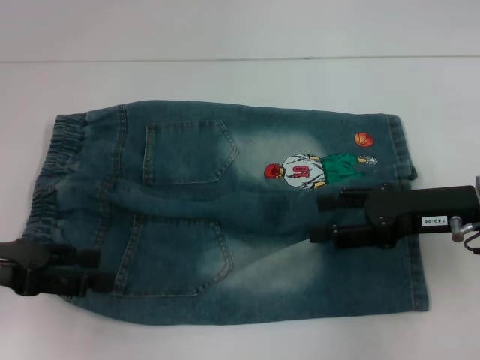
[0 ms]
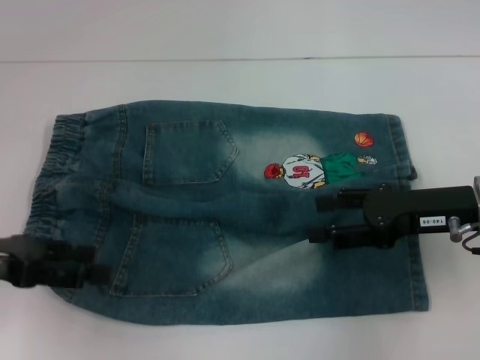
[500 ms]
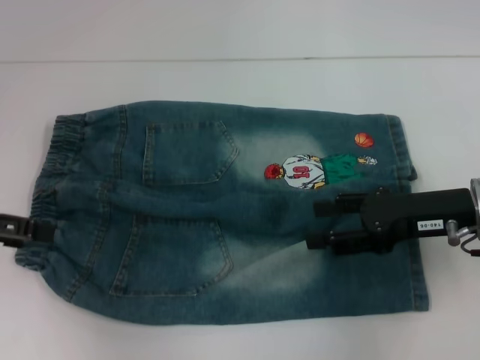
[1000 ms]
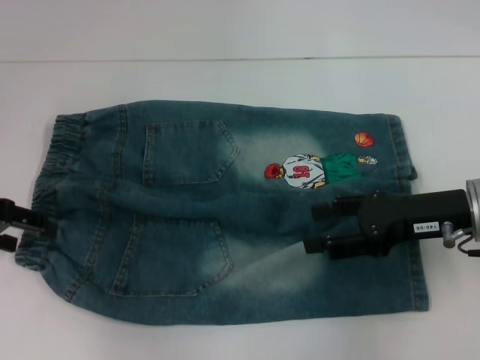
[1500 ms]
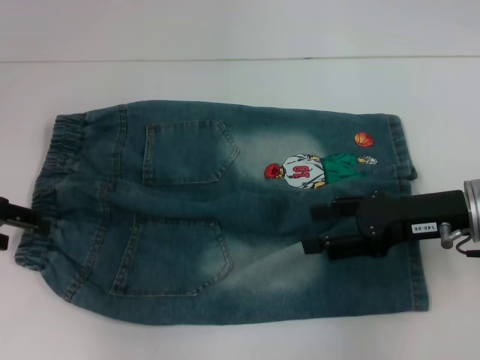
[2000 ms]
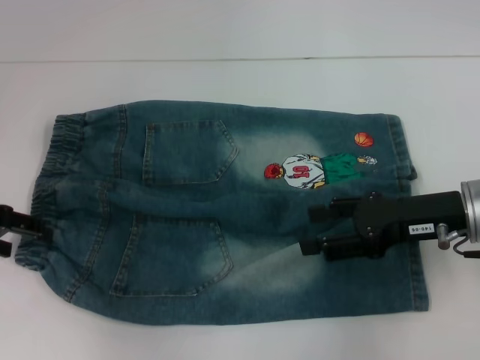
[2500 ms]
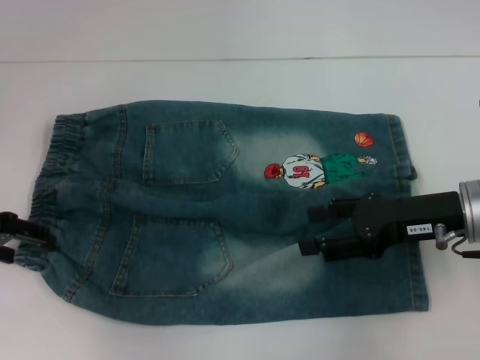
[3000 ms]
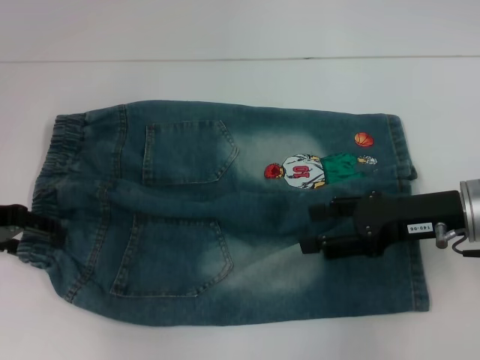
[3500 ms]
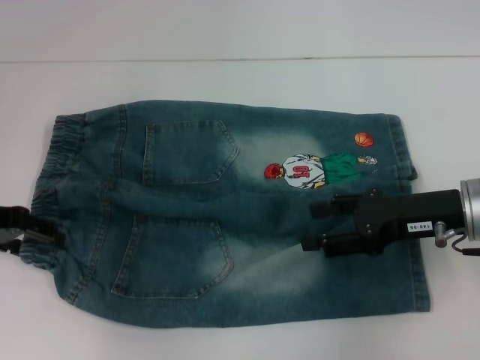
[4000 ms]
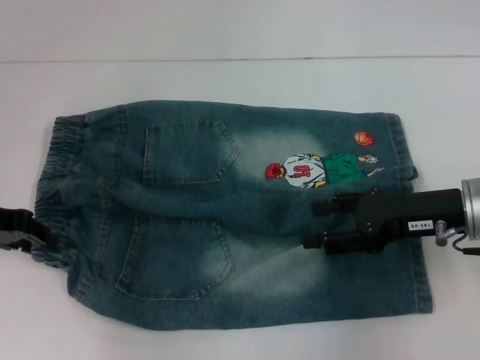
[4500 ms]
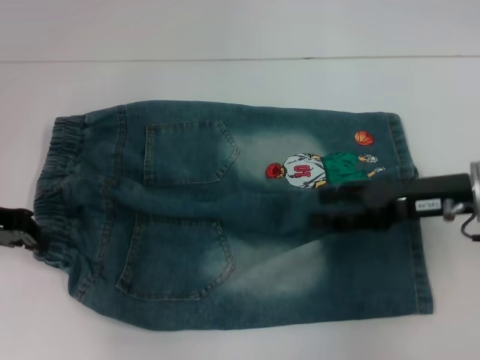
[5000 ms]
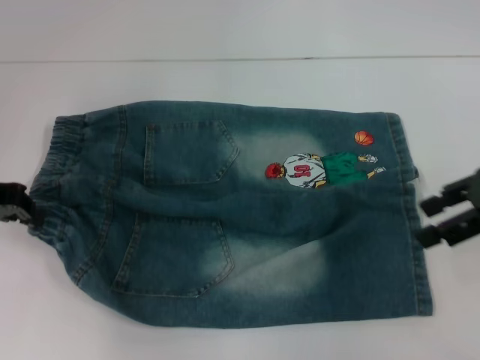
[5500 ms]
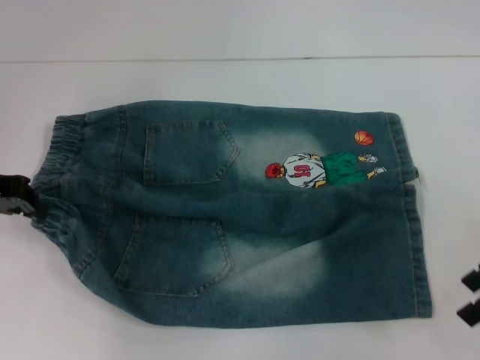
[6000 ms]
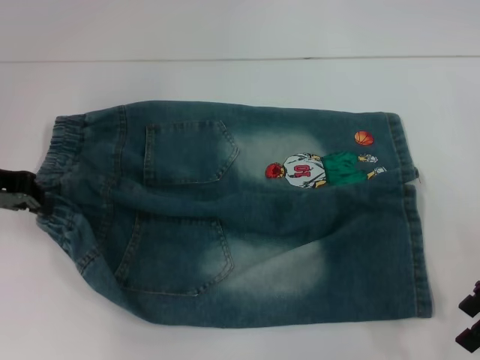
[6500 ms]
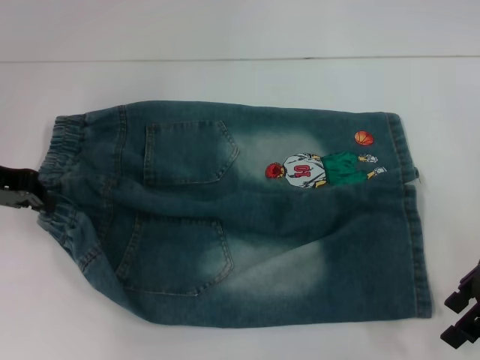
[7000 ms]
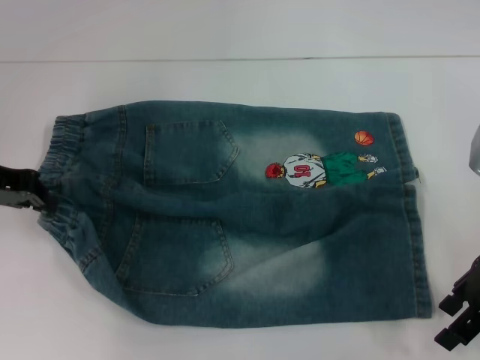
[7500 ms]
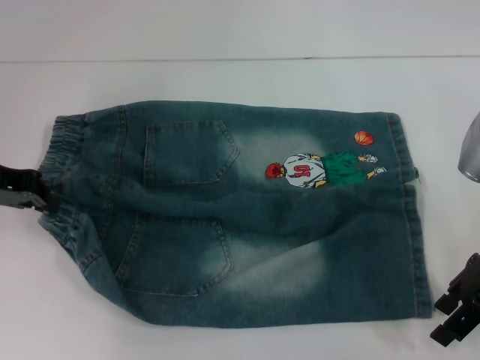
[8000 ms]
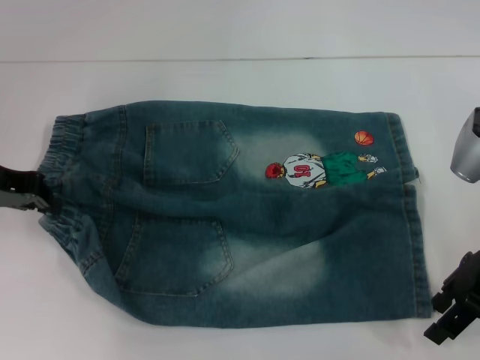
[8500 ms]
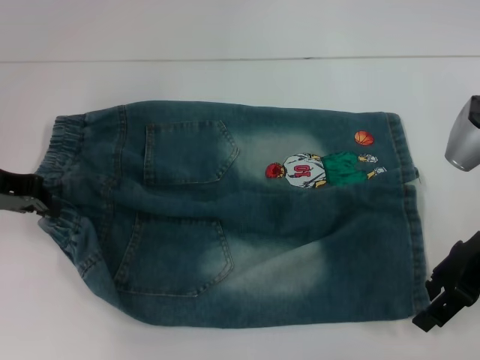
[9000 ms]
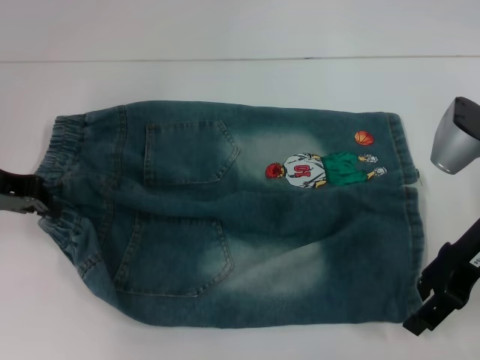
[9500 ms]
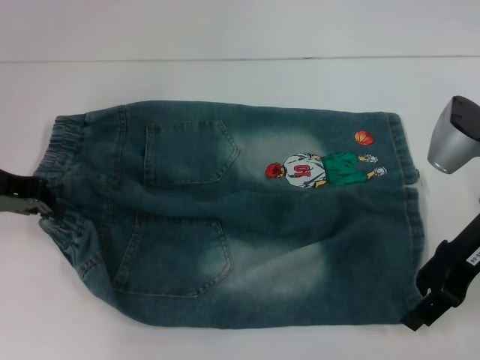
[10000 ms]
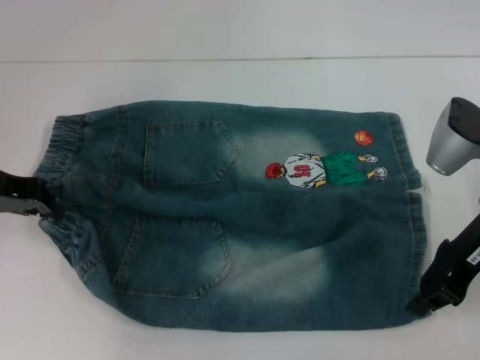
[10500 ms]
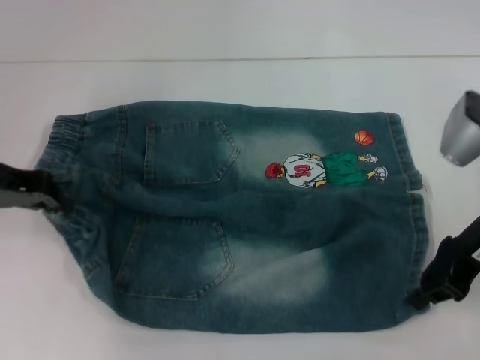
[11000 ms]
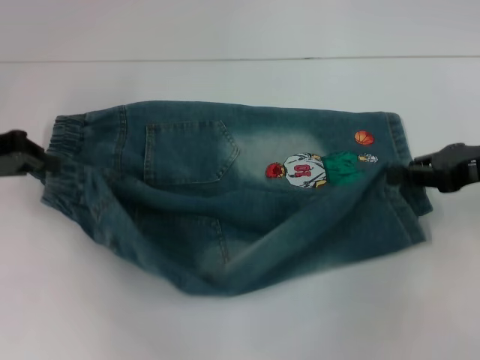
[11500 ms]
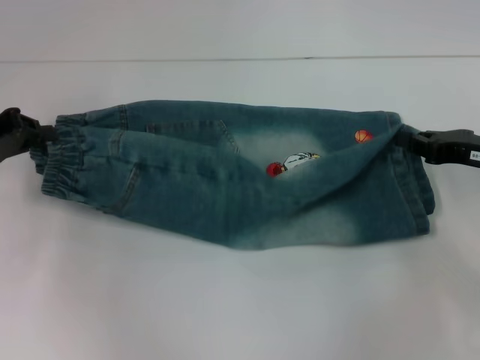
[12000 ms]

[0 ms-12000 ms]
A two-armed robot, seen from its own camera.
Step, 0 ms to 4500 ms: Hold the lower left waistband with your left hand.
Step, 5000 ms to 10500 ms: Grab the lower right pant leg with your right hand.
0 ms to 2000 ms: The left gripper is displaced forward by roughly 10 cm.
2000 ms to 4000 ms: The grippers stay close to where they were, moving slightly.
4000 ms to 6000 ms: The left gripper closes. Meanwhile the right gripper moves to the right and upward, about 10 cm.
6000 ms to 8000 ms: The right gripper ends up roughly 5 cm from where it was.
8000 ms to 10000 ms: There are only small adjustments of the grippers.
10000 ms to 12000 ms: The right gripper travels to the right by approximately 5 cm, and closes up.

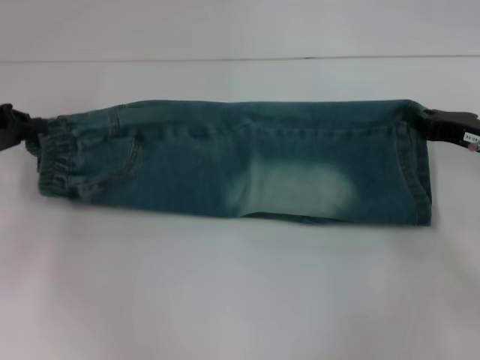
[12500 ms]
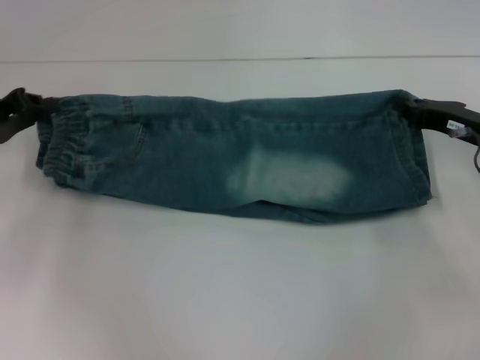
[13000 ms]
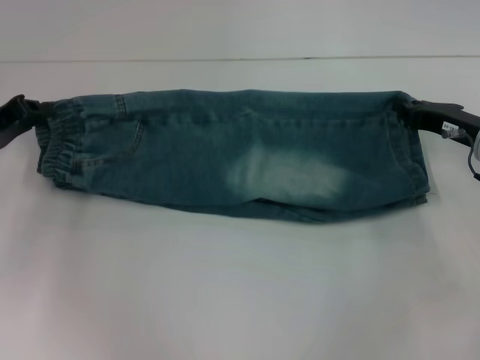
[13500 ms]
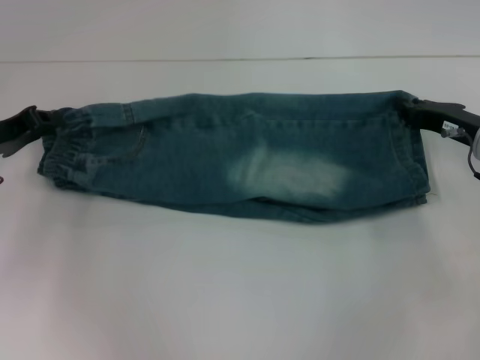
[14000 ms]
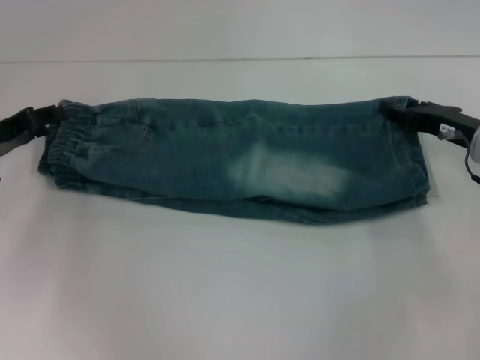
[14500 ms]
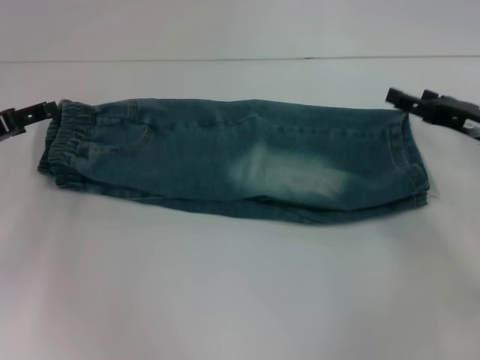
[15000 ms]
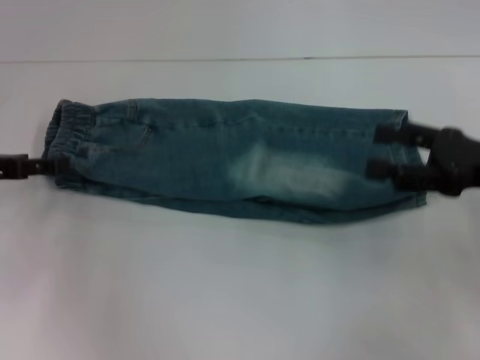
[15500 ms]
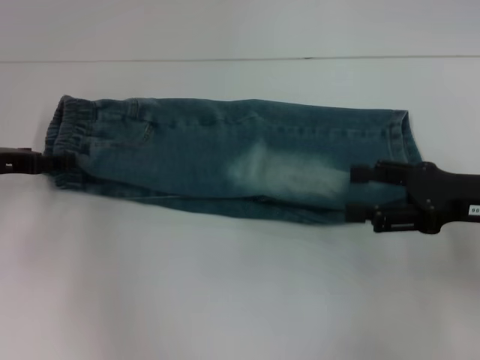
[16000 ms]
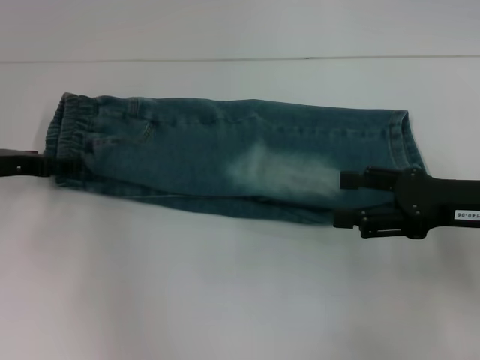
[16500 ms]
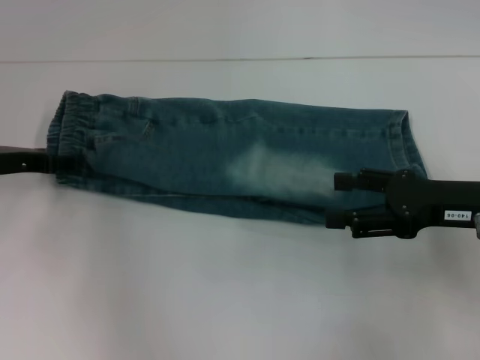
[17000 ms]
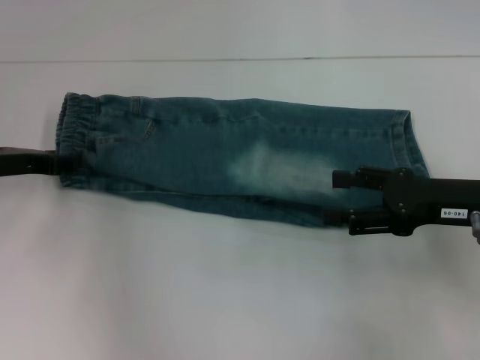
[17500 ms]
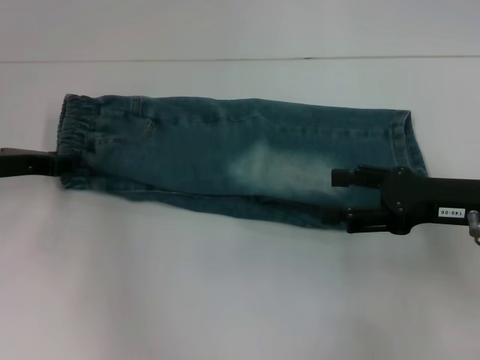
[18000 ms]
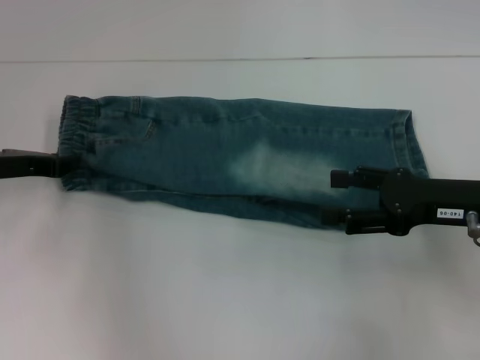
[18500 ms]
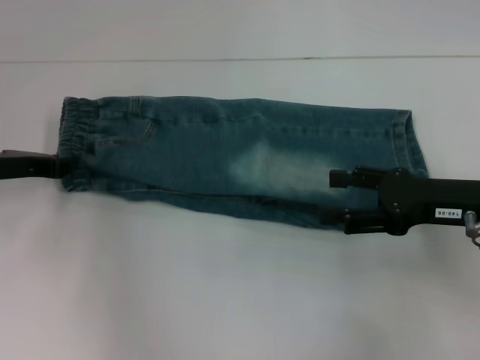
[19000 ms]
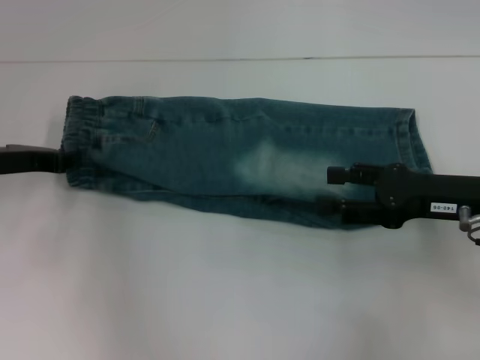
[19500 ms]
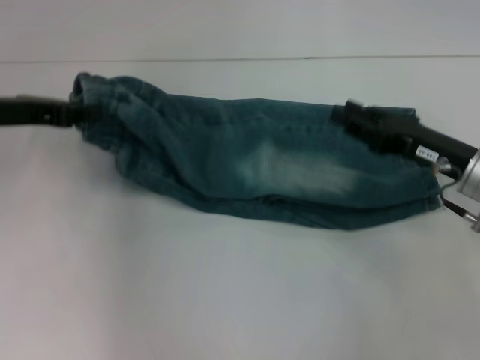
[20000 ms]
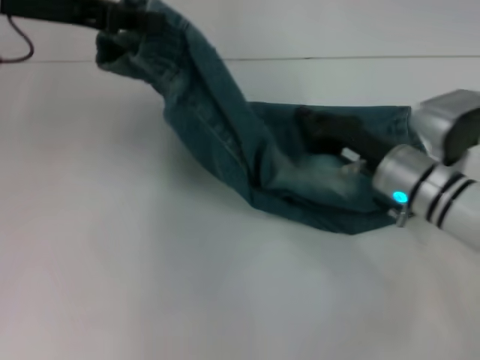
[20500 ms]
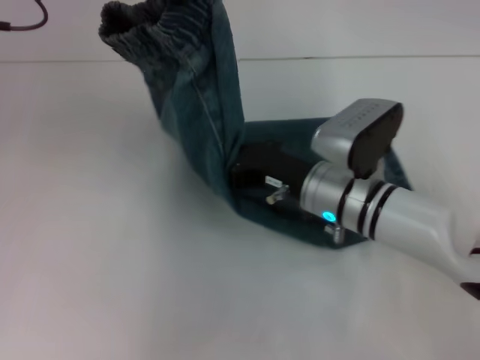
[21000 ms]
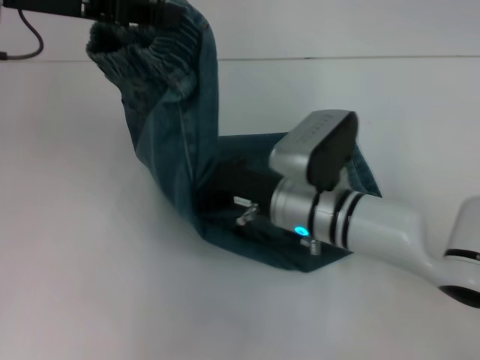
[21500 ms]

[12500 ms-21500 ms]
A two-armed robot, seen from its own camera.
Step, 15000 ms to 19500 ms: Hold the waistband with your left hand.
12500 ms to 14500 ms: The right gripper opens its fingers.
14500 ms to 17000 ms: The left gripper opens its fingers. The right gripper shifts about 10 cm backward, and opens up.
17000 ms to 19500 ms: The left gripper closes its fingers.
19500 ms to 21500 ms: The left gripper heads upward and to the right, covering some 20 cm. The right gripper moves to the left, some 20 cm, and closes up.

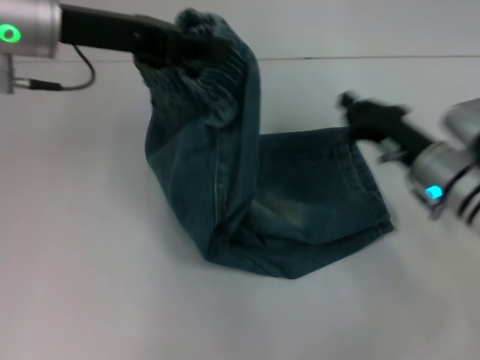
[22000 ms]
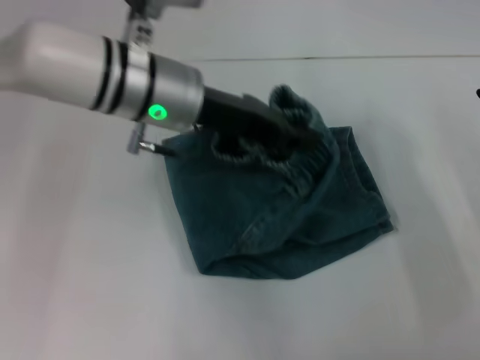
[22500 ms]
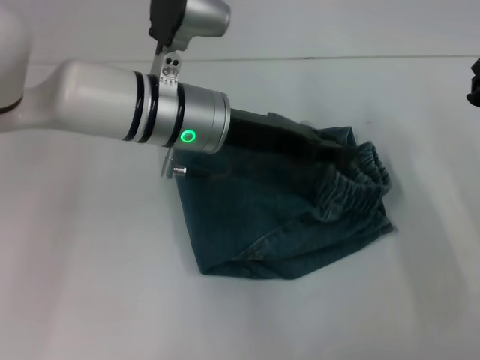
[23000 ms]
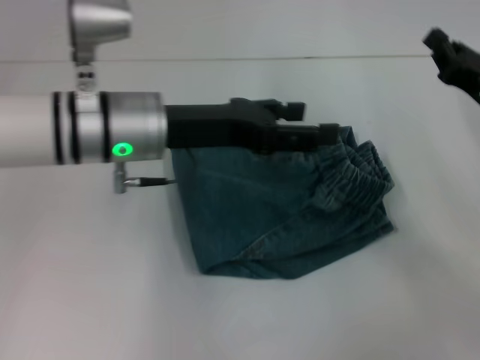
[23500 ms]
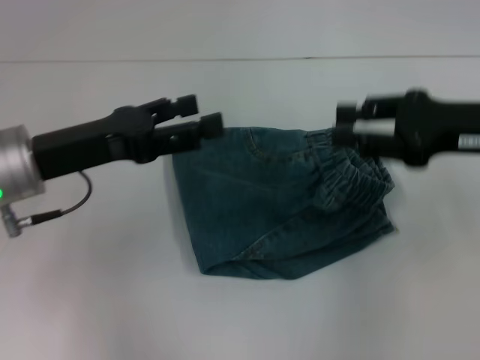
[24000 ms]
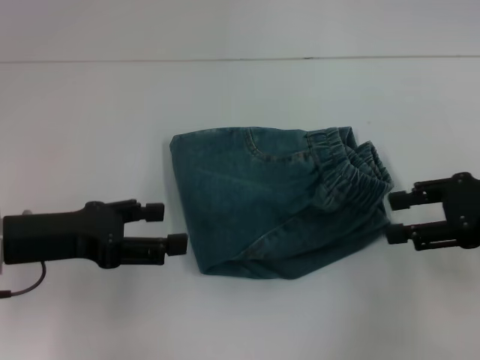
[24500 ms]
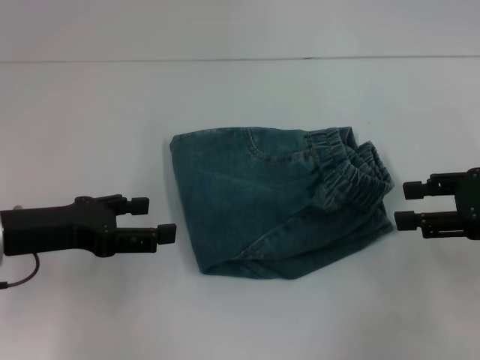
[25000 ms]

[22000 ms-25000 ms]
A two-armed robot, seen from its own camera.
Step, 22000 ms to 23000 ms: Fold to the right with your left hand.
22000 ms to 23500 ms: The right gripper goes roughly 10 cm to the right. Meanwhile the left gripper shifts approximately 10 cm downward and to the right, and opens up.
23500 ms to 25000 ms: The left gripper goes roughly 15 cm to the left and backward. The right gripper shifts about 5 cm upward and backward, and opens up.
